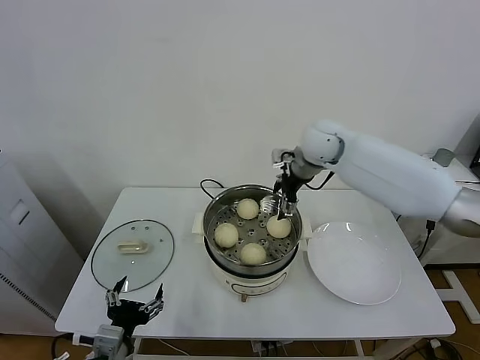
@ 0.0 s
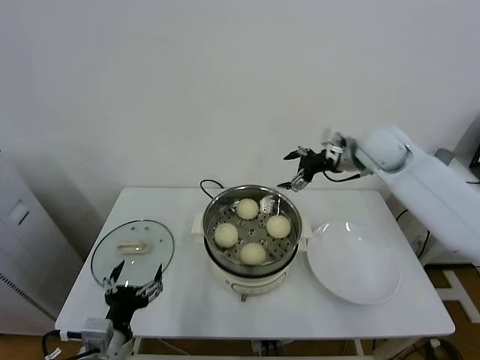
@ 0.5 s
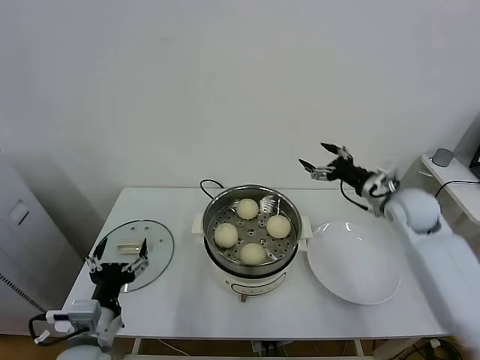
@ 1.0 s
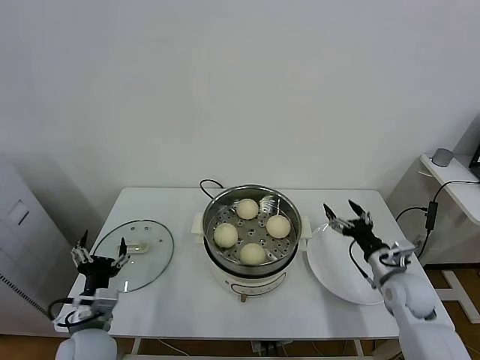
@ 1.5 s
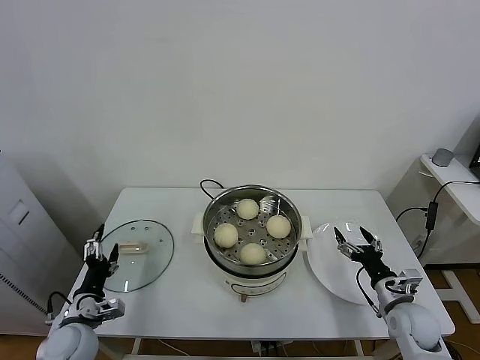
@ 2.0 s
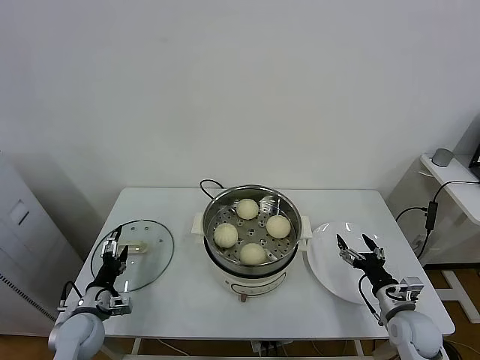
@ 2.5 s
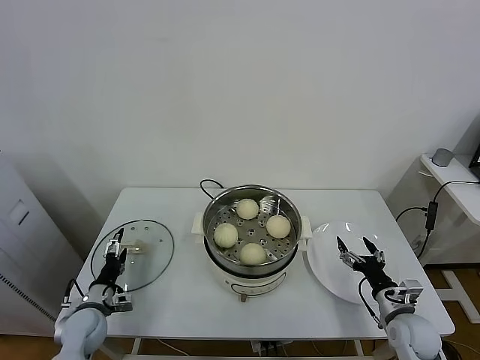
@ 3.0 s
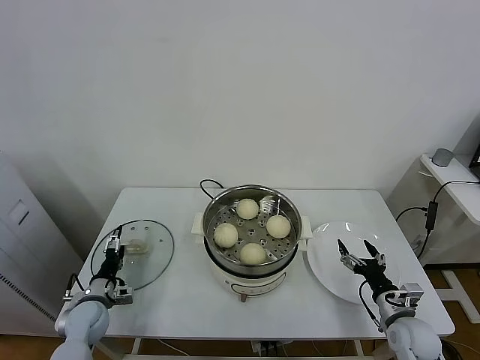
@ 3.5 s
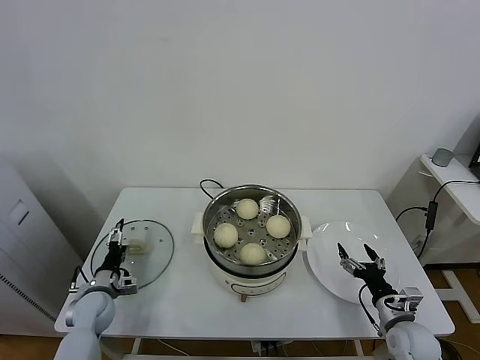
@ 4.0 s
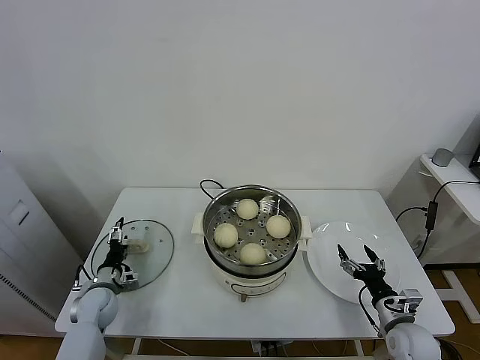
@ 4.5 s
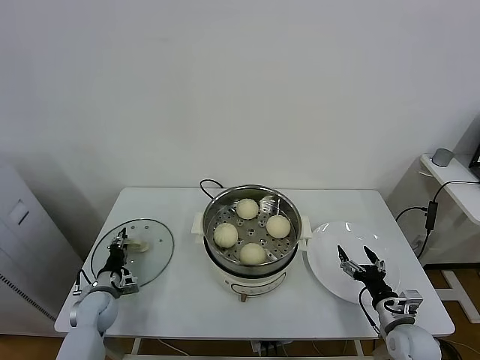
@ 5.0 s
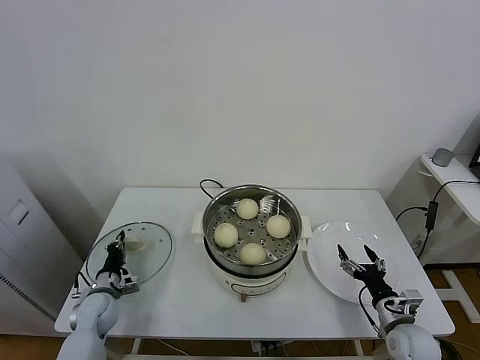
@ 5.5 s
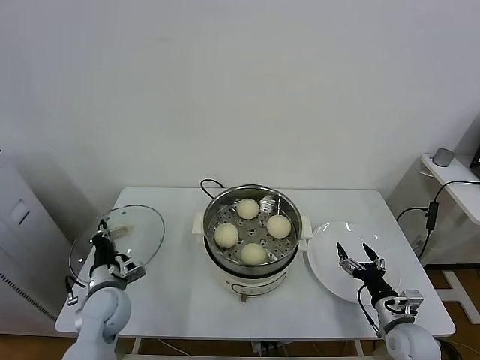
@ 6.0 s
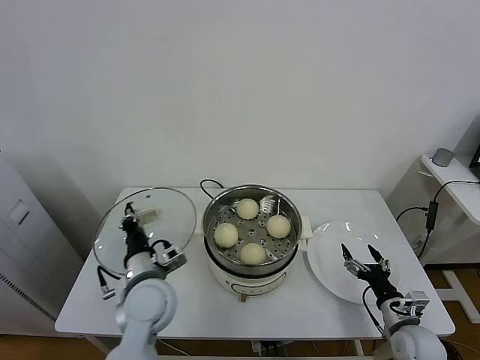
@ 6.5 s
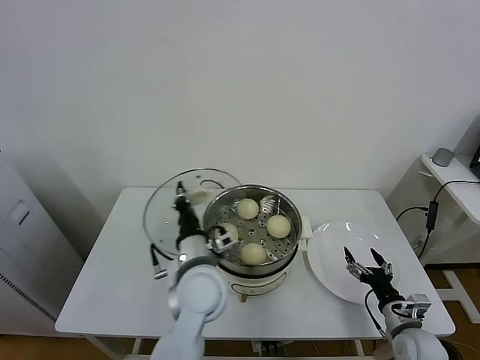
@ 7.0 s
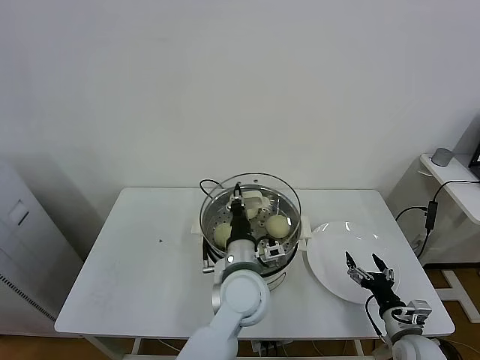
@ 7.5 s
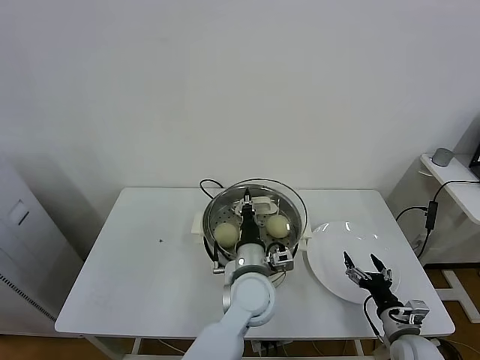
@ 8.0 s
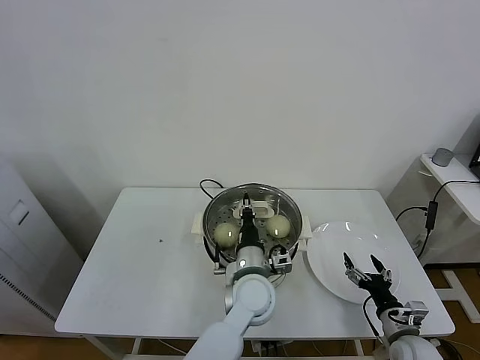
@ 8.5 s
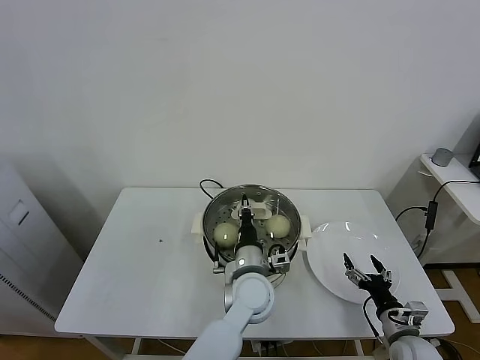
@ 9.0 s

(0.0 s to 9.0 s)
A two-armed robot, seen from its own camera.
Task of the whole recording: take steamed baozi put them in steamer.
Step, 0.0 s - 5.0 s: Grasp the pot lid with left gripper.
0.0 s - 2.0 s: The left gripper moves forward, to the left and downward, approximately 15 cm. Meanwhile the right gripper is displaced downward, backward and to the right by about 50 cm.
2.0 s - 4.5 s: The left gripper shifts approximately 15 cm forward and downward.
4.5 s - 7.0 s: The left gripper heads to the right and upward, covering roughly 35 cm, and closes.
7.0 s - 9.0 s: The left gripper moves to the right and downward, about 15 cm.

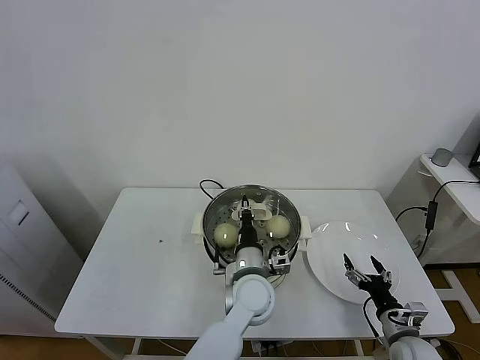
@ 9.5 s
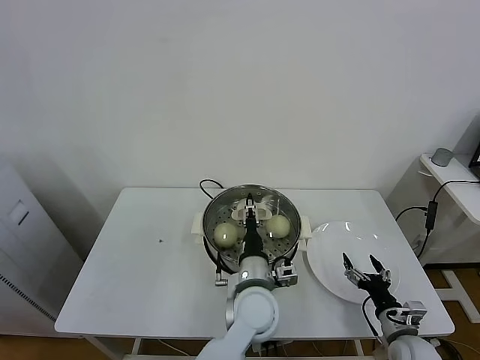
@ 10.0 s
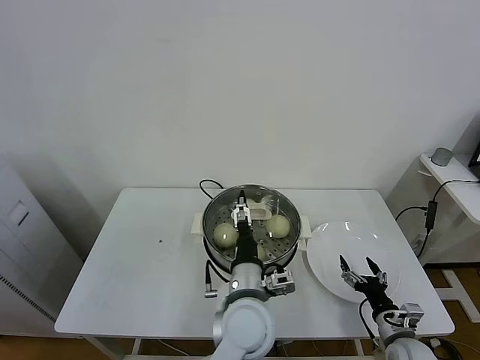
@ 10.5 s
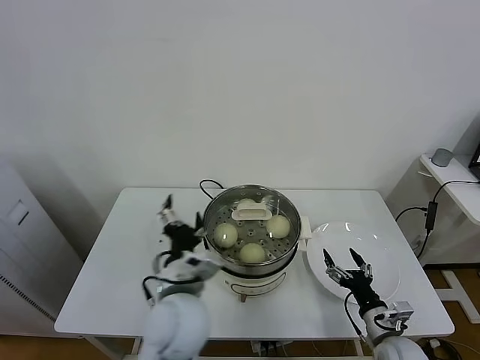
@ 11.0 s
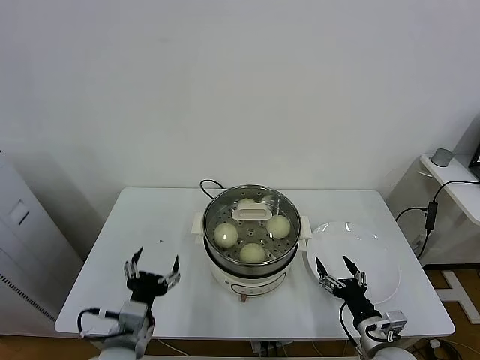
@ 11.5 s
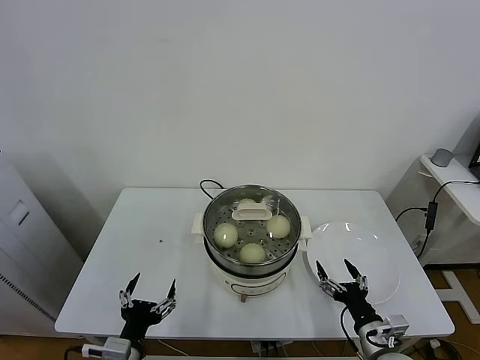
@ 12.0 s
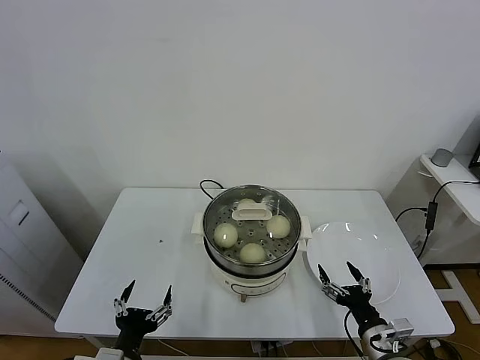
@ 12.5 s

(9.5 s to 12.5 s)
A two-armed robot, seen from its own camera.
Task of the whole recording: take steamed baozi put them in steamer.
9.5 s - 11.0 s: The left gripper is displaced to the left, upward and backward by roughly 15 cm, and opens.
11.0 s - 12.5 s: The left gripper is displaced to the left, backward and downward by roughly 25 cm. Meanwhile the right gripper shifts by about 5 cm.
